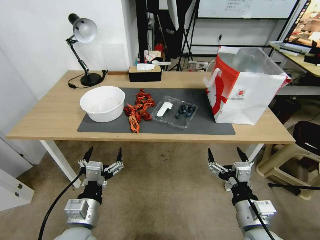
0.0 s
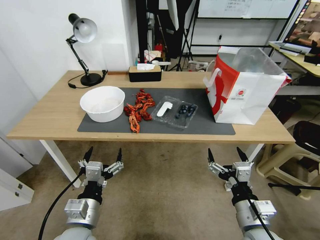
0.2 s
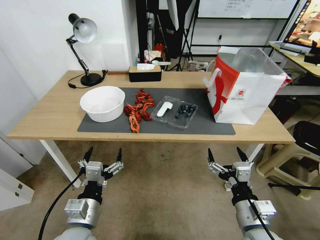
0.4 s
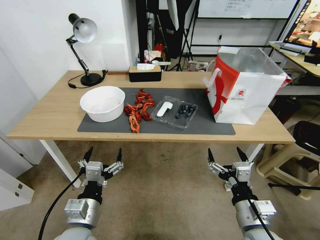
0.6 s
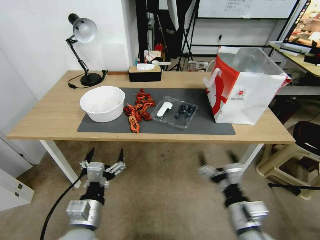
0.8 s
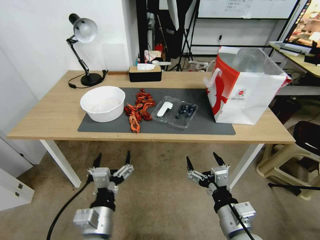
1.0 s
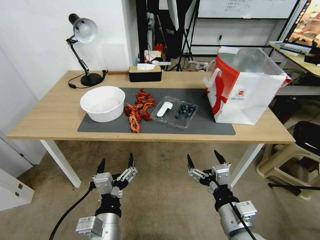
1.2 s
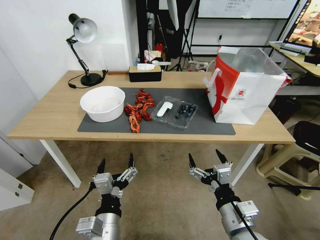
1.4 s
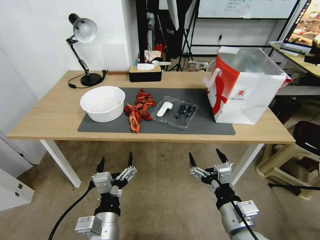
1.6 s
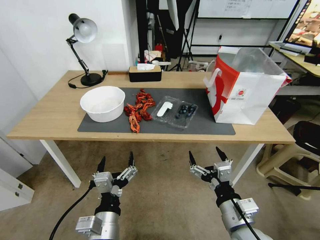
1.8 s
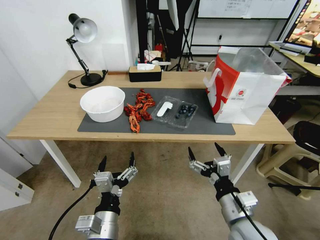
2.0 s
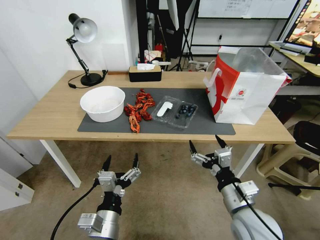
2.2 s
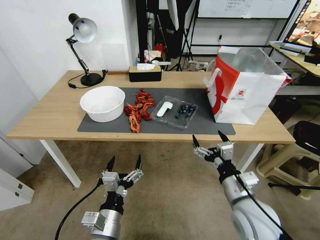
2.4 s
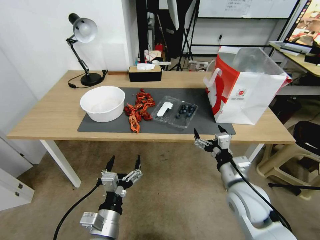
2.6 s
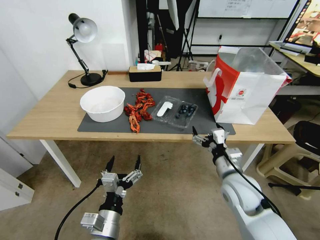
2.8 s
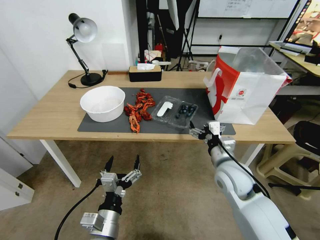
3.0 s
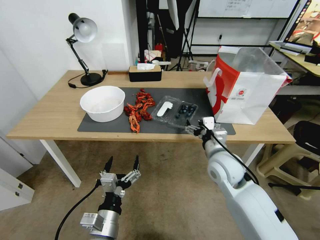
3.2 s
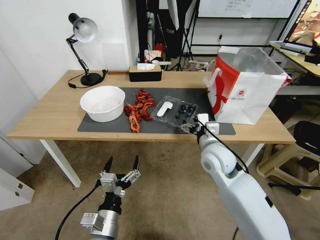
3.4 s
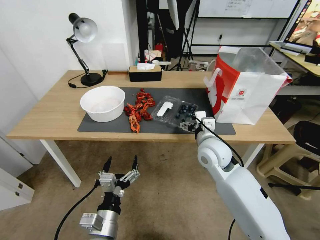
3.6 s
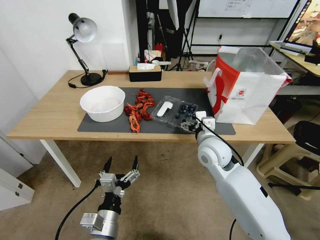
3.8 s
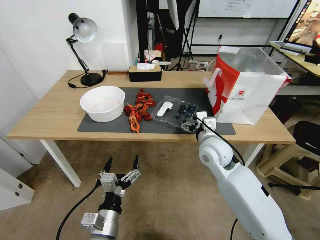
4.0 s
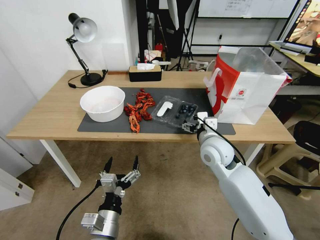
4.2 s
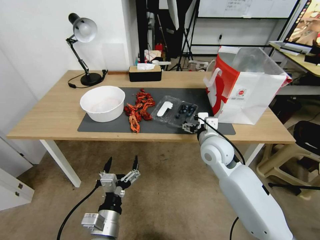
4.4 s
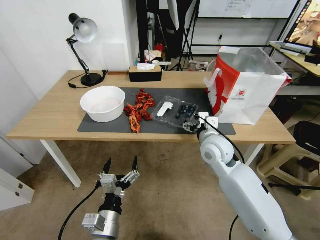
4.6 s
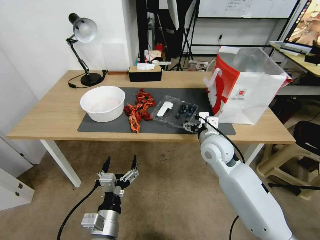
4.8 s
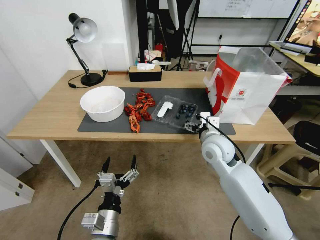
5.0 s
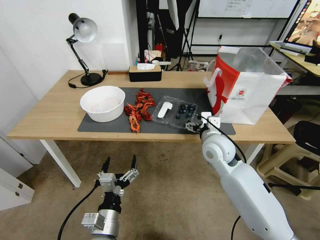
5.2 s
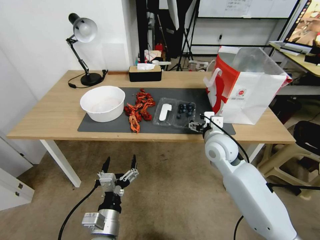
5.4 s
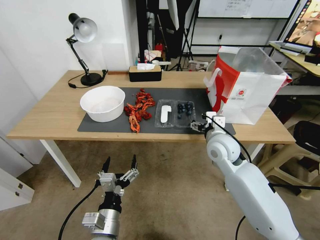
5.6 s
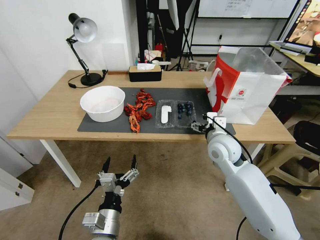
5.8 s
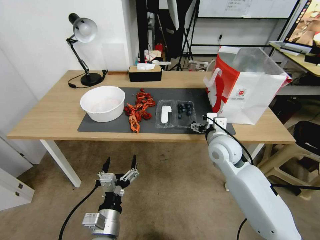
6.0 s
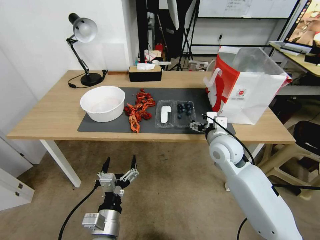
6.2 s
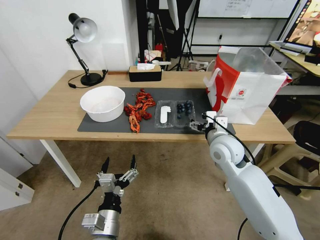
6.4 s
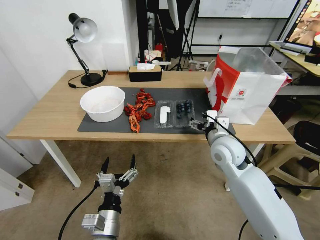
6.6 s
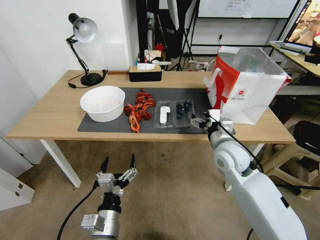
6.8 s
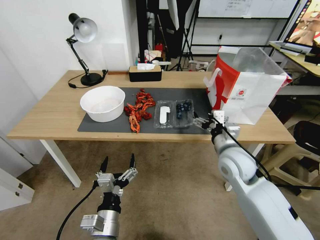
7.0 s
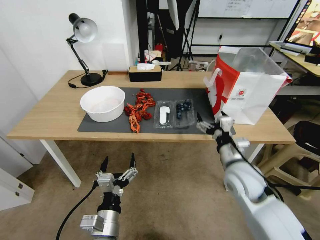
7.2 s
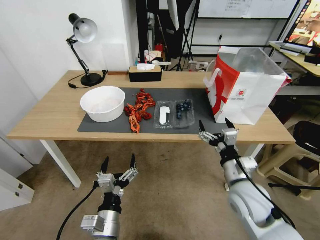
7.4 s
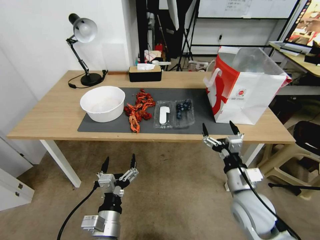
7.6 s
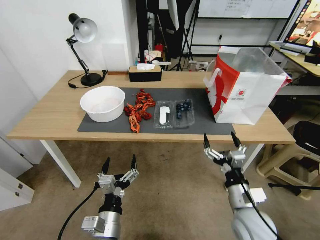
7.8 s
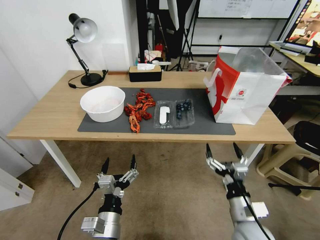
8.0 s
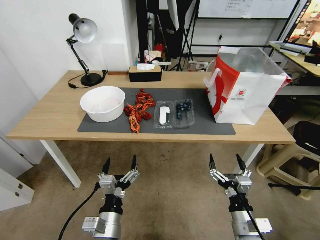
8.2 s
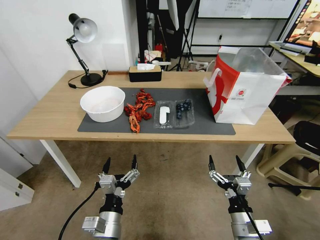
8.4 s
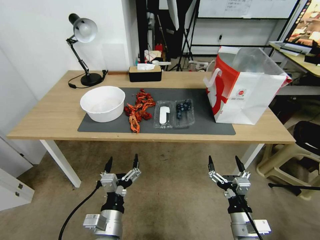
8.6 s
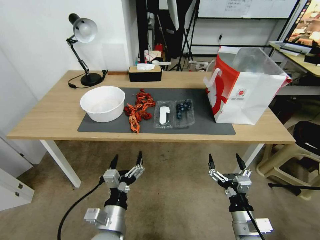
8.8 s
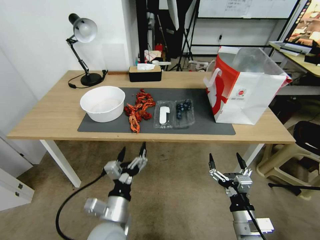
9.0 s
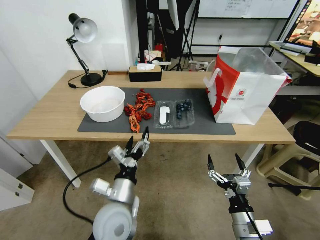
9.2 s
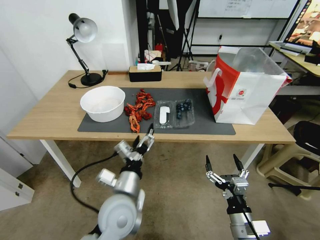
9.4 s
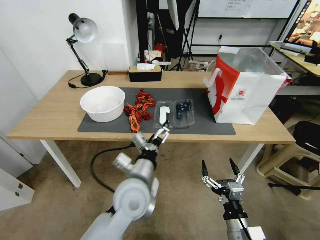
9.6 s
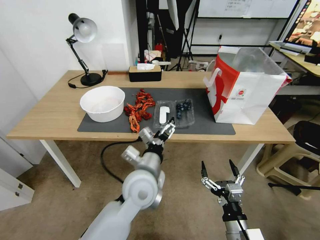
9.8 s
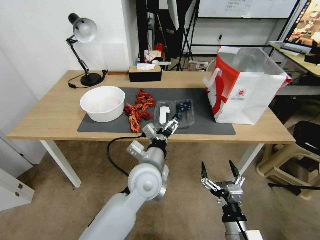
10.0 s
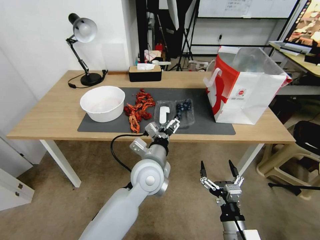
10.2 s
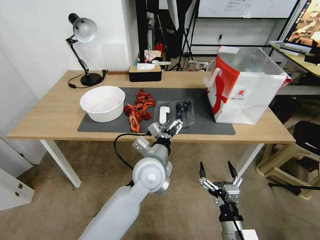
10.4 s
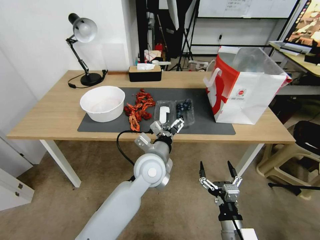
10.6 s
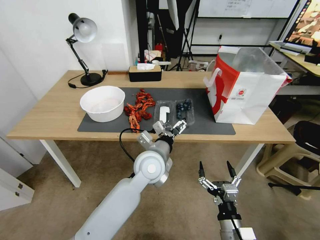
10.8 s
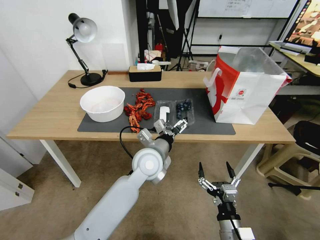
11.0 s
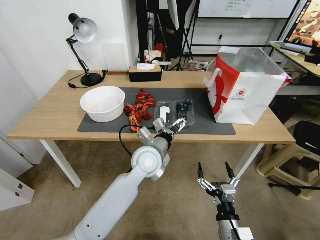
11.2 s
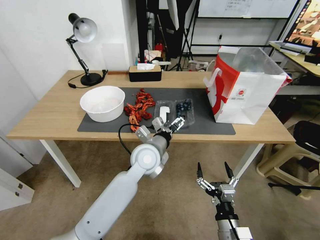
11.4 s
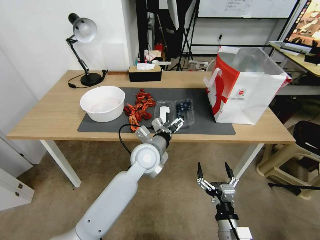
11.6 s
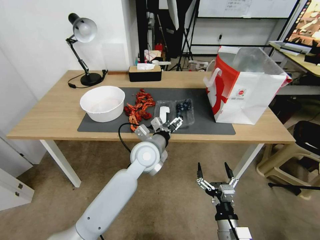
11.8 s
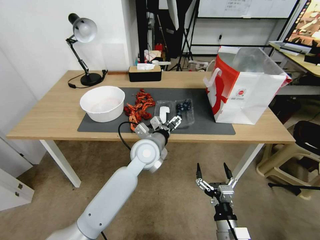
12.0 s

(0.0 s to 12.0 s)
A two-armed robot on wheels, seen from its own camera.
Task of the whole recording: Close the takeout container lid, then place the container into the takeout bag.
1.6 s - 3.0 s: The right gripper is displaced forward by approximately 15 cm.
3.0 s - 4.4 s: The right gripper is displaced forward by roughly 5 cm.
4.4 s - 6.0 s: There are only small adjustments of the grippers.
6.0 s - 7.6 s: The right gripper goes approximately 15 cm backward.
7.6 s - 9.0 s: The right gripper heads backward and downward, covering approximately 10 cm.
9.0 s - 10.4 s: The left gripper is displaced forward, to the right and upward by roughly 20 cm.
10.4 s - 12.0 s: The left gripper travels forward by approximately 5 cm.

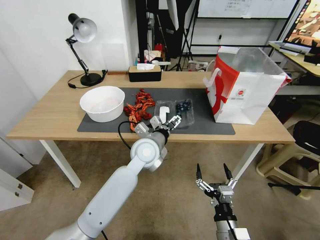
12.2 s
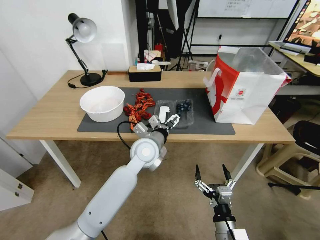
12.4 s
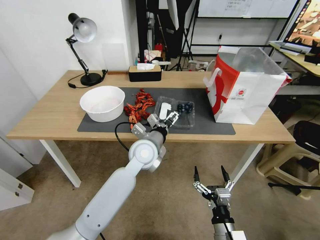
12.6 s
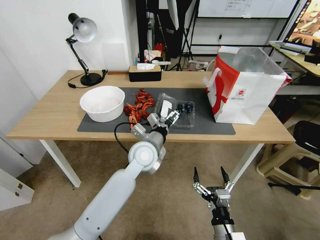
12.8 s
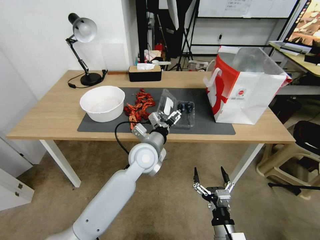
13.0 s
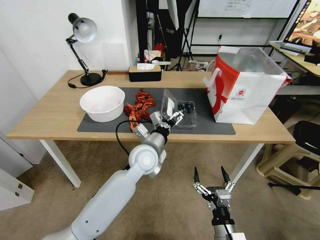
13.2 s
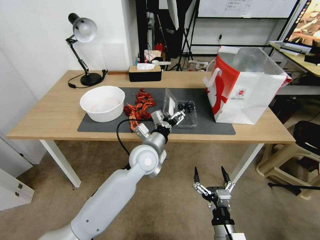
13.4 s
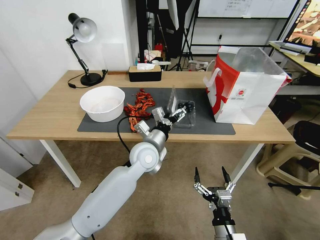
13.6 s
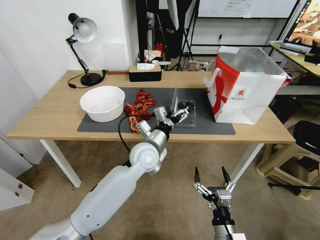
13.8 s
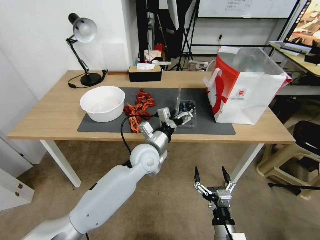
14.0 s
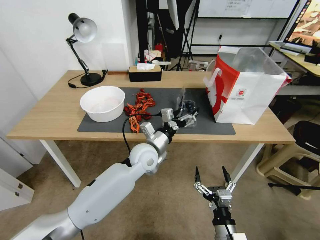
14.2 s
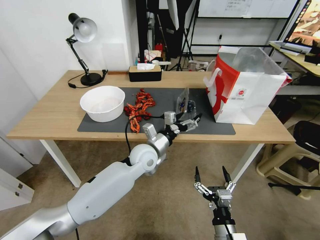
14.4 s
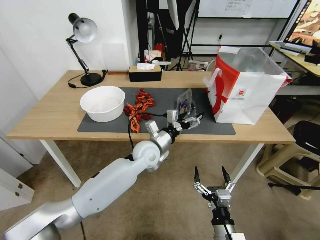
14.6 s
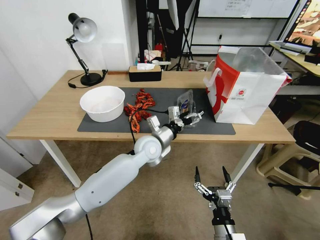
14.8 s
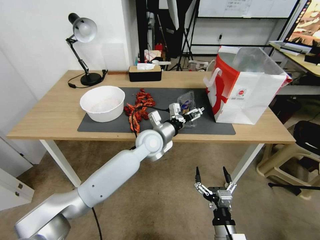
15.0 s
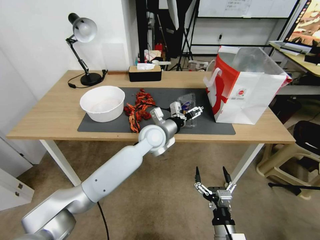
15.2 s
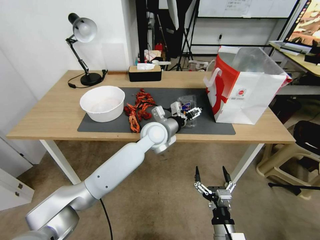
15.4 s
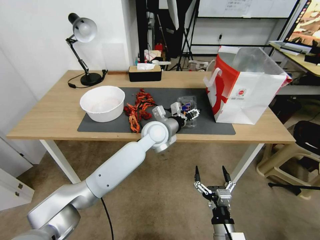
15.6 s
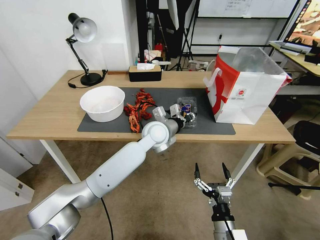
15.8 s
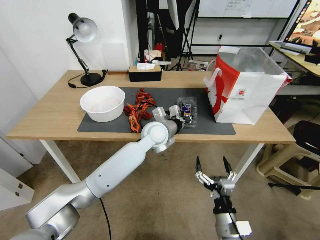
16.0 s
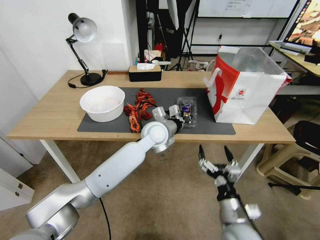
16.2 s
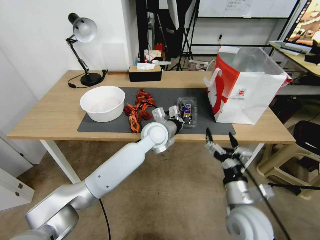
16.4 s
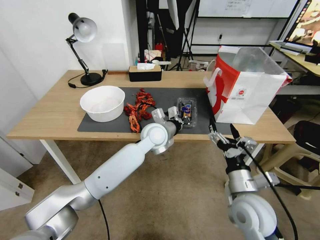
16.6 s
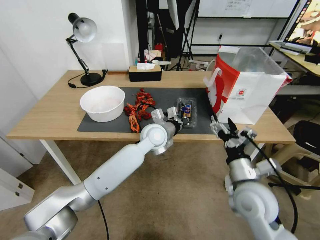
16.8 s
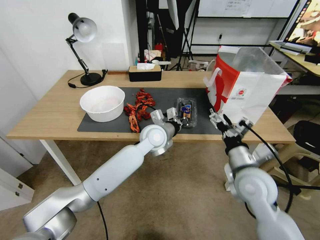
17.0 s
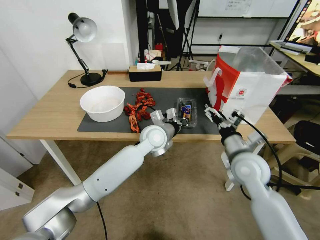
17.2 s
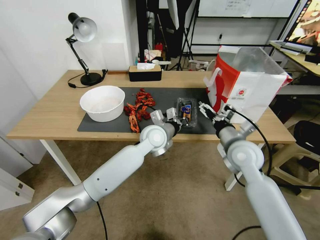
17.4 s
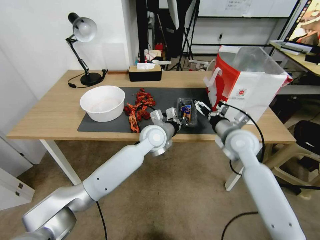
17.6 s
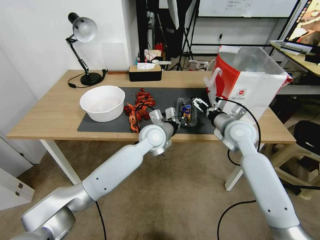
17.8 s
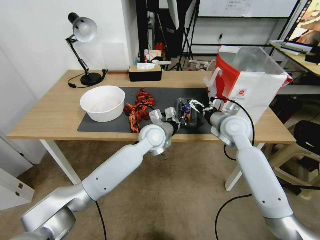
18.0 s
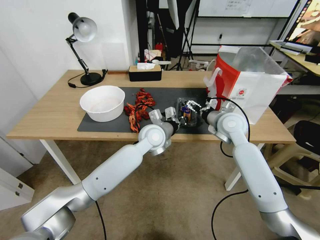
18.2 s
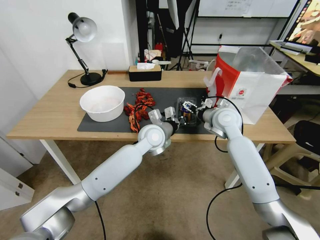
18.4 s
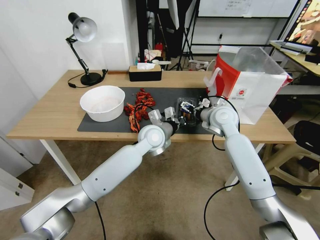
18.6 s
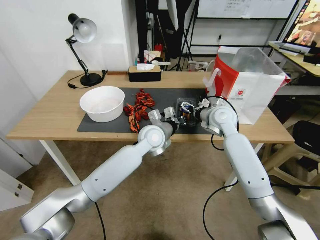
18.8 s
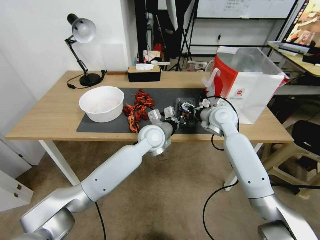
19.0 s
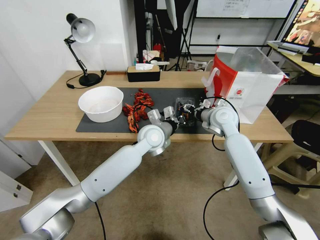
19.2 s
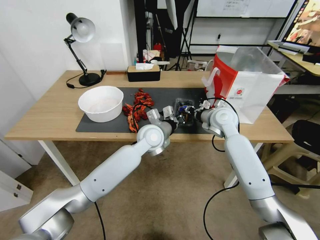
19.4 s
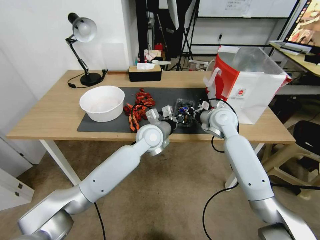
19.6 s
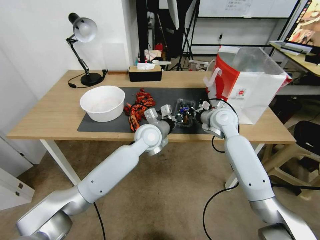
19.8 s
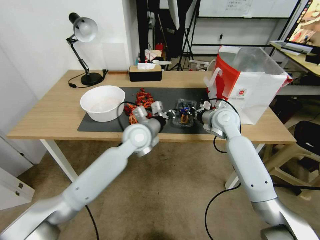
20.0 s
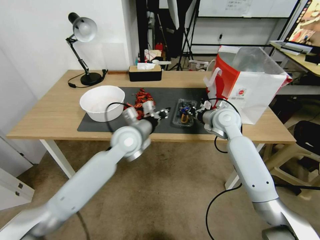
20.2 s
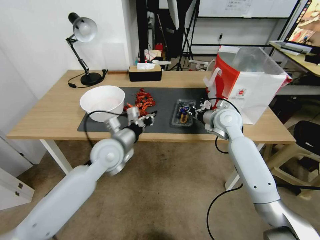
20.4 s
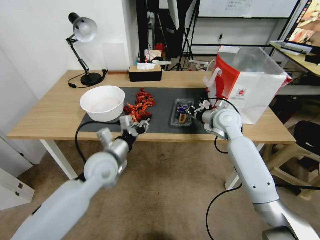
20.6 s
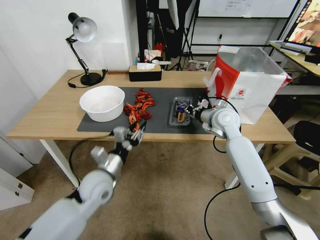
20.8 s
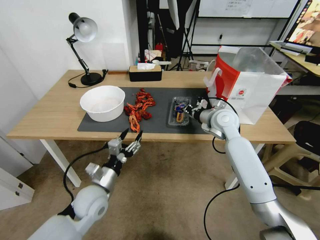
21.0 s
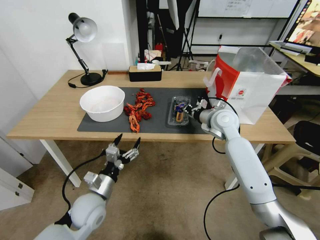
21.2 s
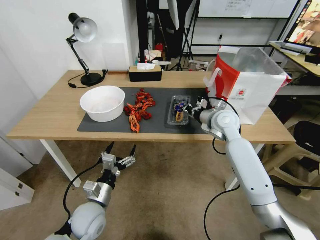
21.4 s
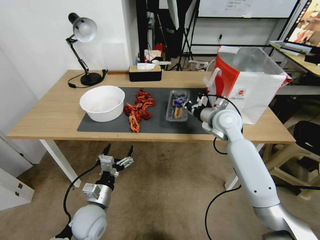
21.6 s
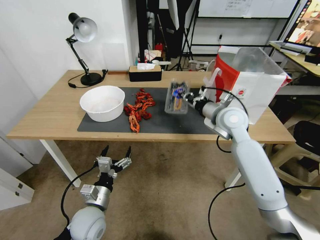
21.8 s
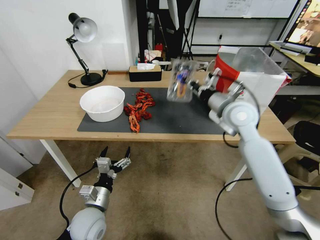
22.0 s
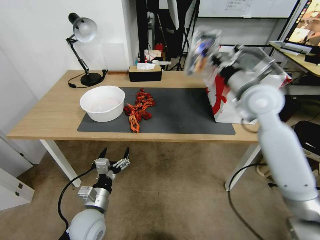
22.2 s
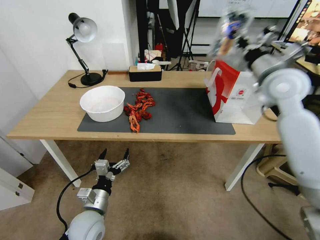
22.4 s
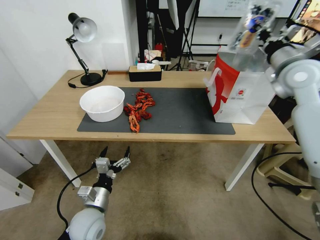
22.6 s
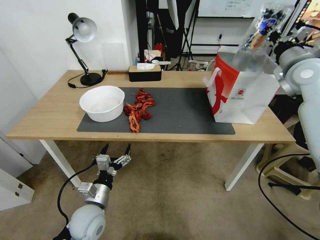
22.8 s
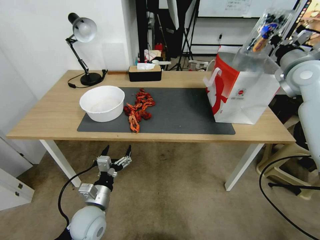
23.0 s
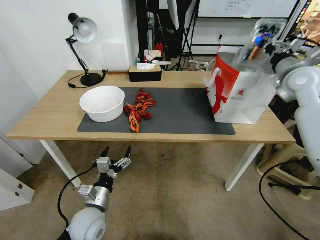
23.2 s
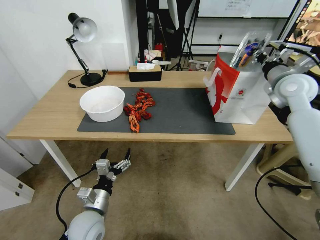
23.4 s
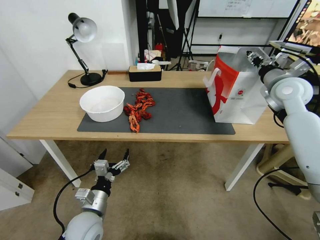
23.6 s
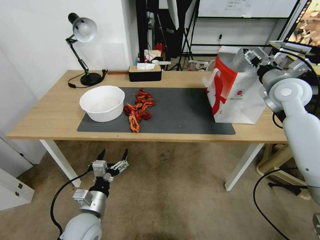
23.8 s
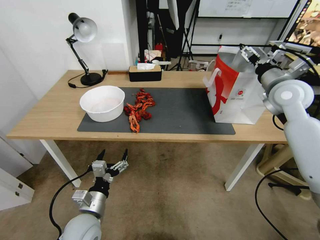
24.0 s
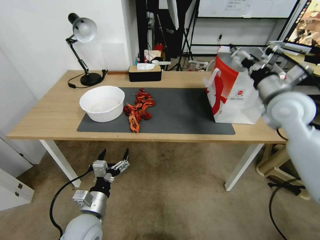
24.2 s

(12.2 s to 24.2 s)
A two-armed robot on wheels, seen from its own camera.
Task of the whole recording: Close the takeout container lid, then place the container into the takeout bag.
13.8 s - 15.2 s: The left gripper shifts about 5 cm forward.
15.2 s - 16.6 s: The left gripper closes. The right gripper moves upward and forward, approximately 20 cm.
16.6 s - 18.2 s: The right gripper is displaced forward by some 25 cm.
18.2 s - 19.8 s: The right gripper closes.
19.8 s - 21.2 s: The left gripper travels backward, to the left and downward by about 30 cm, and opens its fingers.
21.2 s - 22.6 s: The right gripper heads upward and to the right, covering some 25 cm.
22.6 s - 24.2 s: The right gripper is displaced downward and backward by some 10 cm, and opens.
